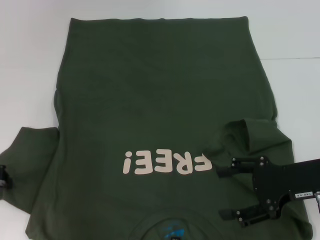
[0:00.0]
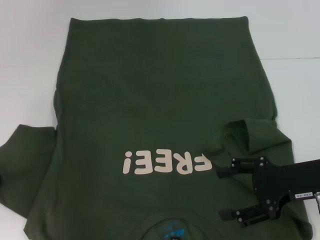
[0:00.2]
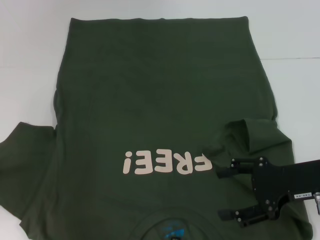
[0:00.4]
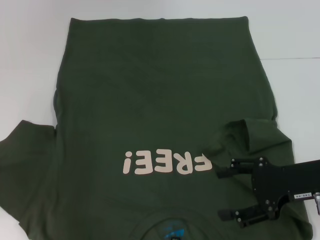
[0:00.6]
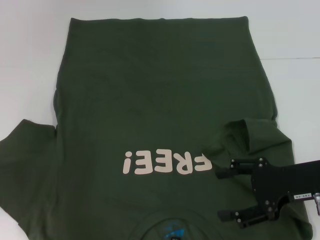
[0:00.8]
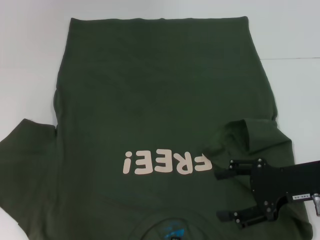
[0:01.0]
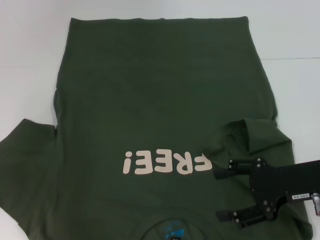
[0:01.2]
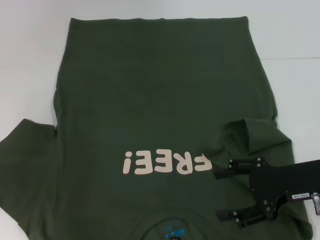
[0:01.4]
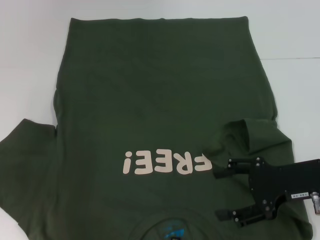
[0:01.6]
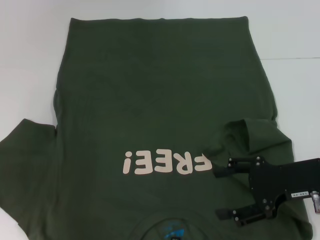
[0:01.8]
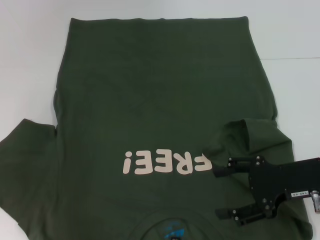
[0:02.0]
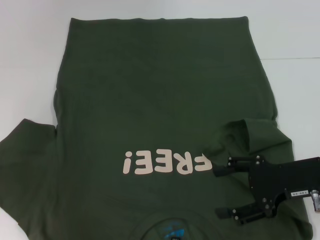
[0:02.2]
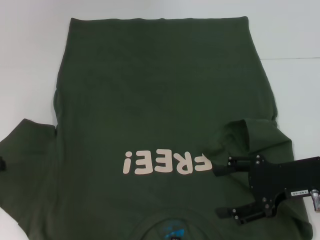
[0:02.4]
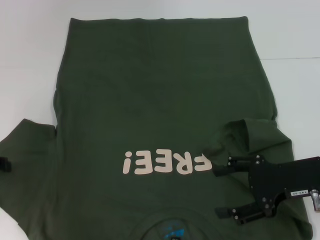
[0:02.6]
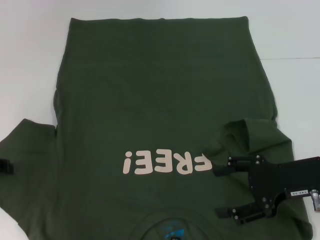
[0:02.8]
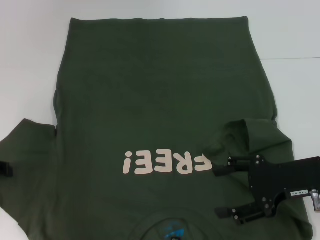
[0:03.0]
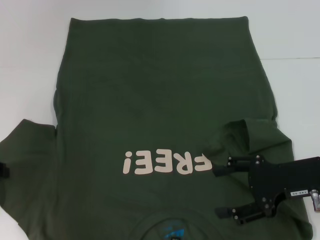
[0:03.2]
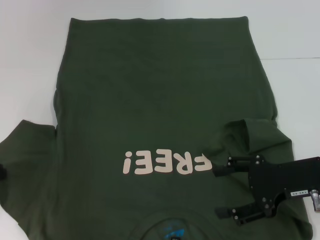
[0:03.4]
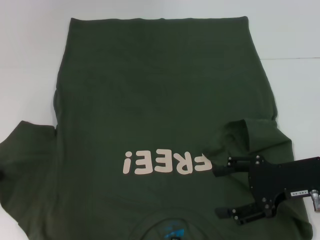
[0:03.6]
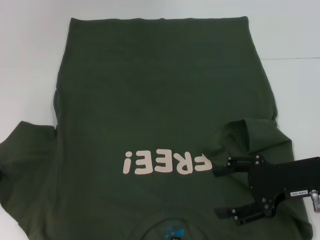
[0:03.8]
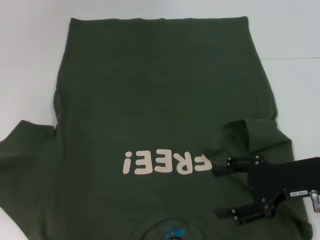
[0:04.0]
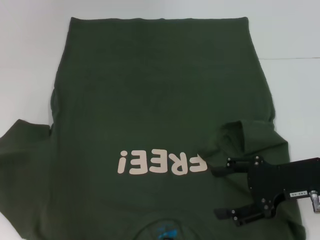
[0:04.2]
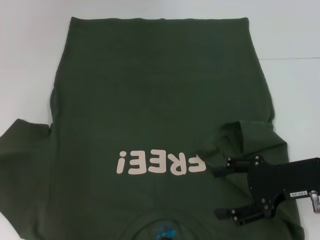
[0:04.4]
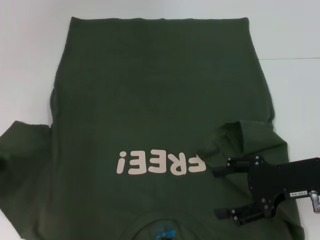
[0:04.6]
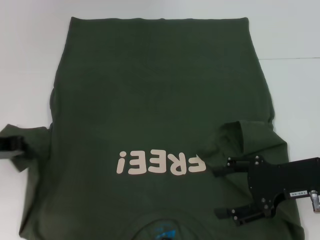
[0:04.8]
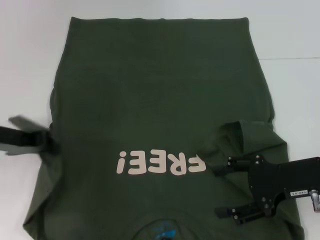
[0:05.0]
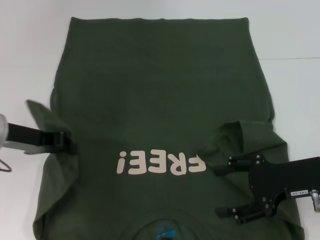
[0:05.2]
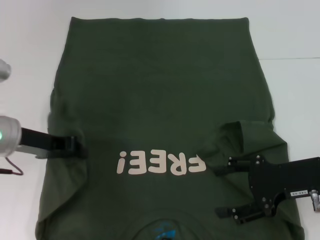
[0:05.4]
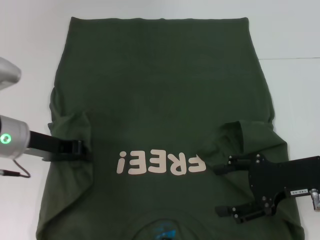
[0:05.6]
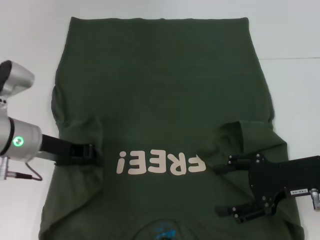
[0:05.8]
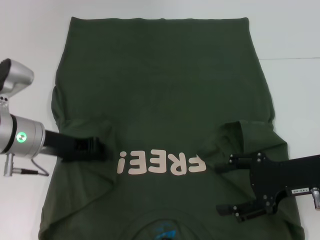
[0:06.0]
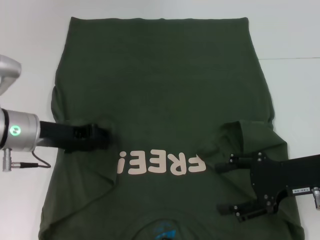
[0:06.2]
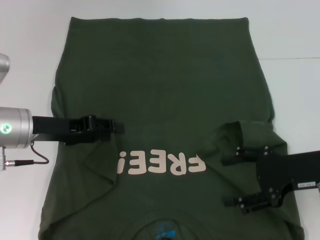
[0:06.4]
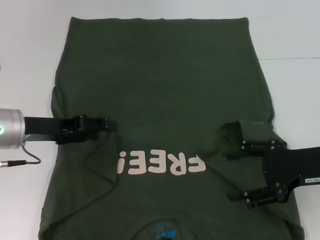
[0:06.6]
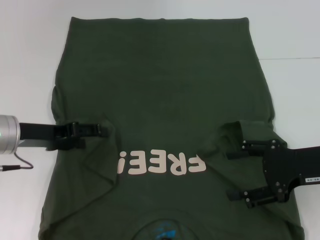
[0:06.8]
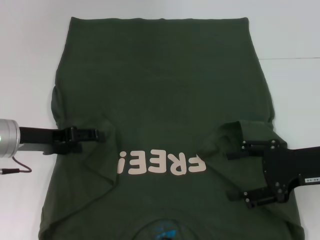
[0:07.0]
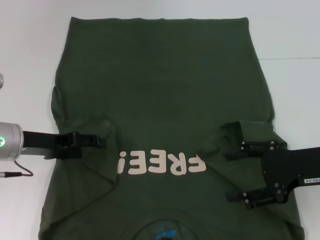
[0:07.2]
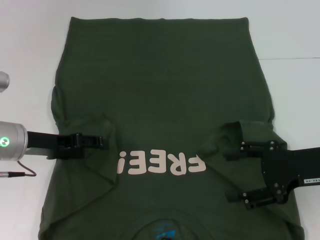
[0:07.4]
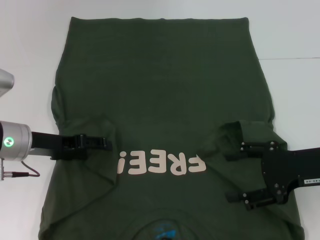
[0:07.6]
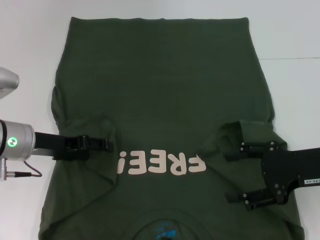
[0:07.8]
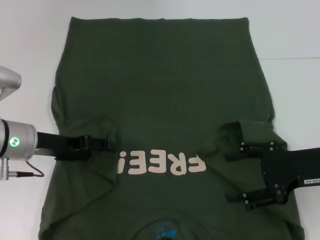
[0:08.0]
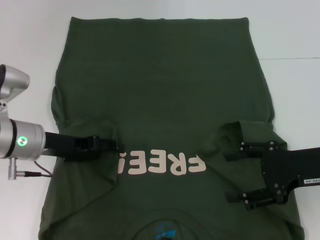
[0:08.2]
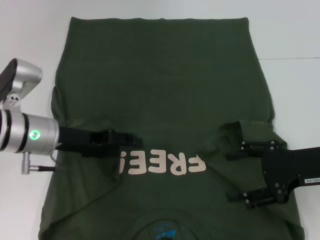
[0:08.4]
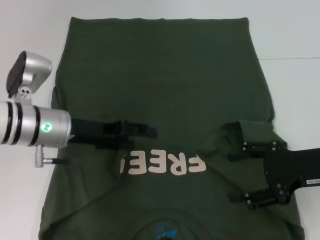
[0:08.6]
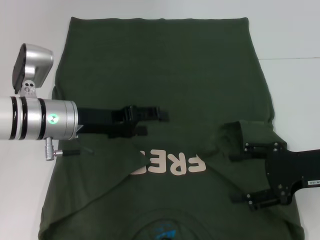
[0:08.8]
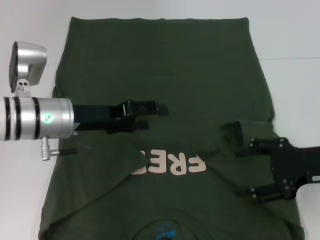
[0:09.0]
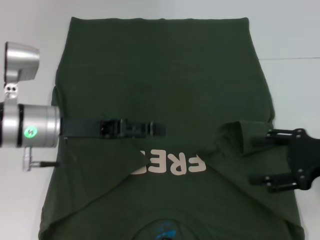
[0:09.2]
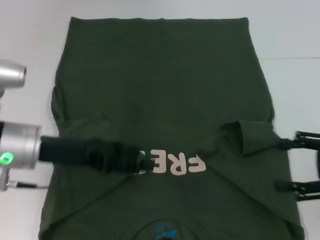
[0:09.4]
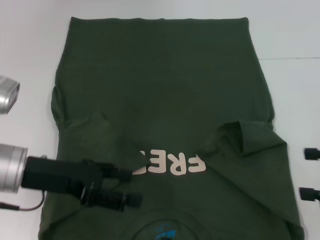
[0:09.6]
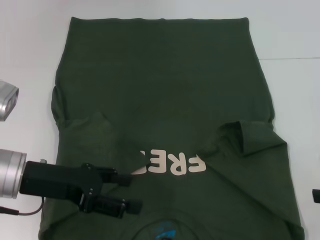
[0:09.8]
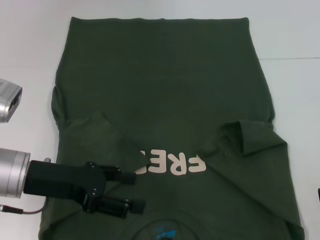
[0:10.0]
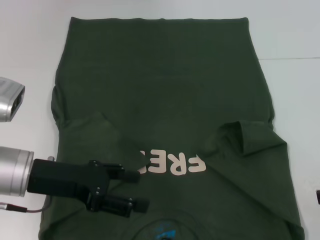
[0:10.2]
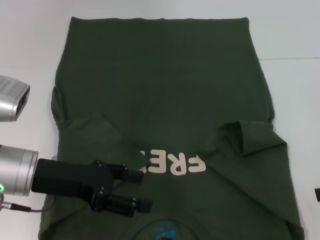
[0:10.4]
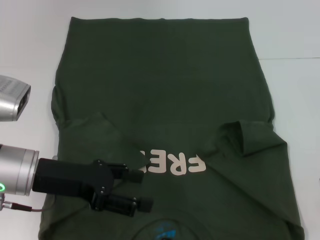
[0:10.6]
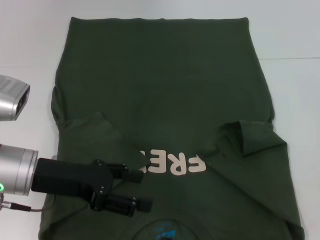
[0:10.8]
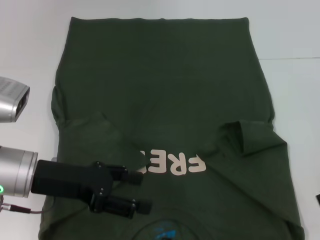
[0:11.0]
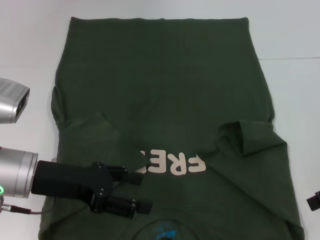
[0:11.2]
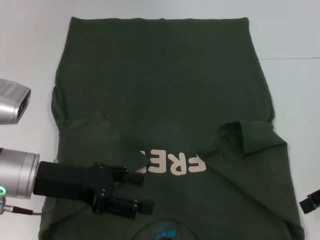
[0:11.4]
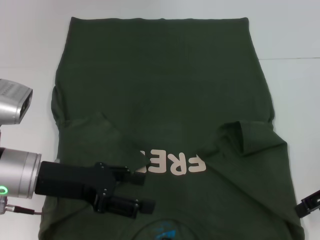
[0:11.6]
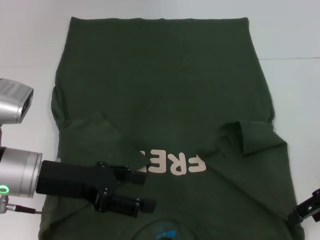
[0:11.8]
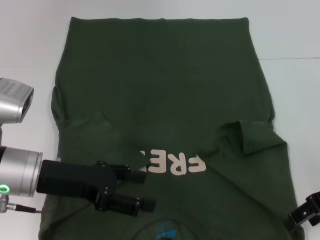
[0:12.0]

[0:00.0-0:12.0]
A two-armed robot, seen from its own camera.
Step, 0:00.0 to 0:06.6: Fold the bottom left sleeve with your left hand.
0:00.0 to 0:01.6: The grippers stay close to where they were, moving slightly.
0:03.0 to 0:04.4: The left gripper closes its fingers.
0:04.4 to 0:06.0: The left gripper is displaced to the right by some 15 cm.
0:06.0 to 0:07.6: The left gripper opens.
0:07.6 to 0:09.0: The left gripper goes approximately 5 cm to the right.
0:09.0 to 0:10.4: The left gripper shifts about 5 cm backward; the right gripper travels to the right by approximately 10 cm.
0:10.4 to 0:12.0: The right gripper is displaced to the left and forward by approximately 10 cm.

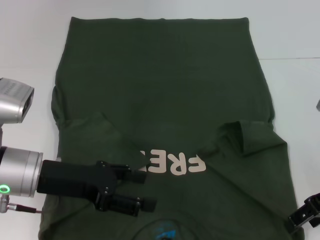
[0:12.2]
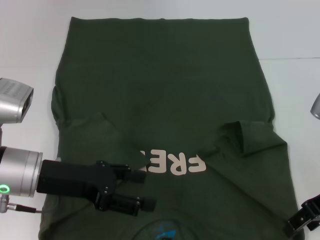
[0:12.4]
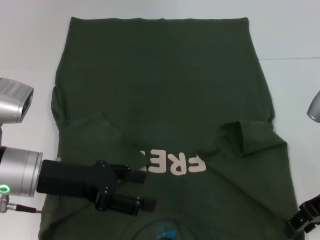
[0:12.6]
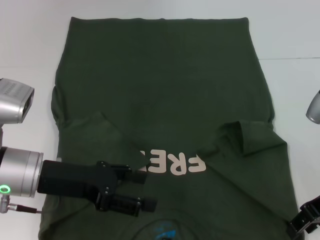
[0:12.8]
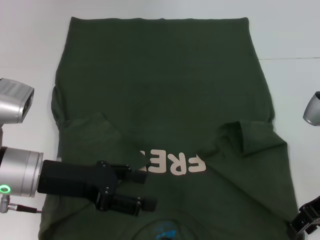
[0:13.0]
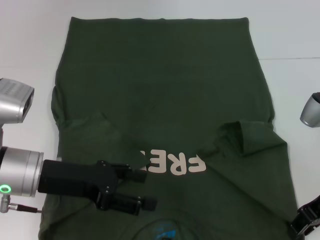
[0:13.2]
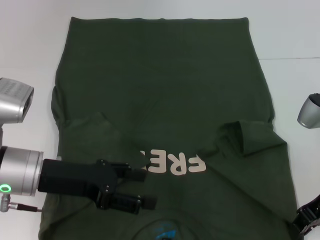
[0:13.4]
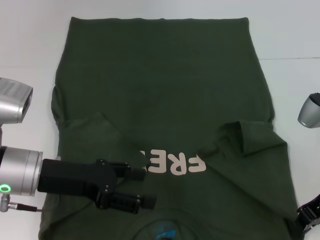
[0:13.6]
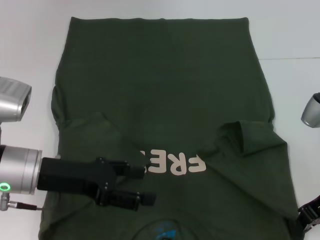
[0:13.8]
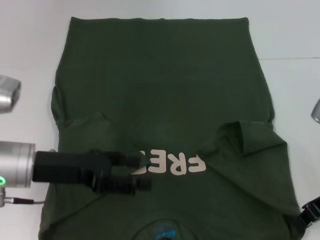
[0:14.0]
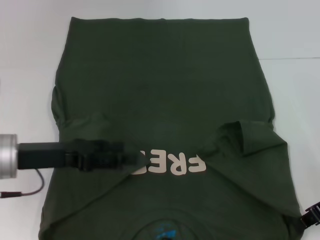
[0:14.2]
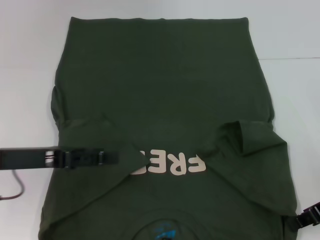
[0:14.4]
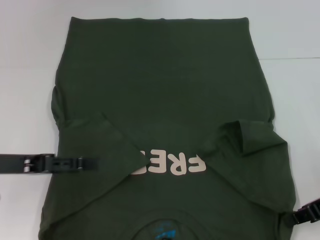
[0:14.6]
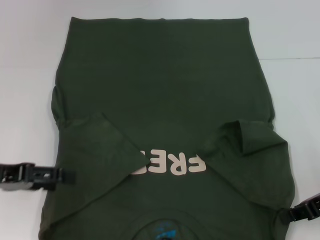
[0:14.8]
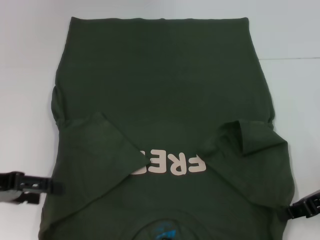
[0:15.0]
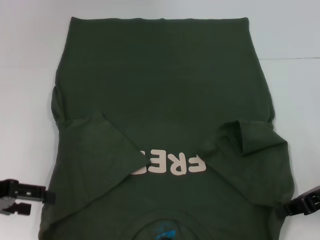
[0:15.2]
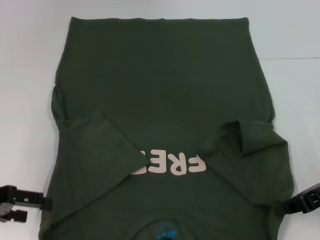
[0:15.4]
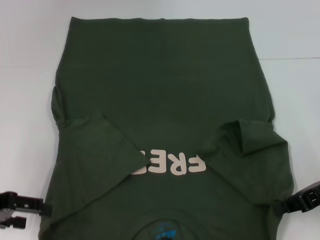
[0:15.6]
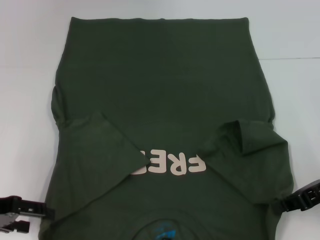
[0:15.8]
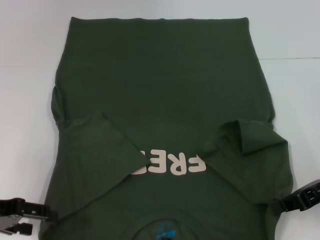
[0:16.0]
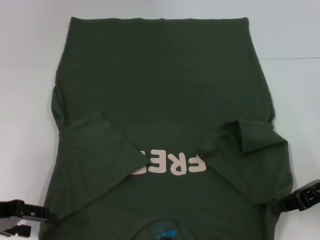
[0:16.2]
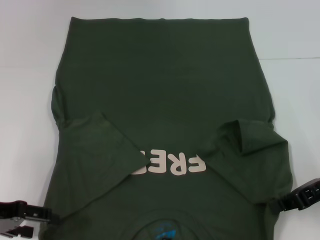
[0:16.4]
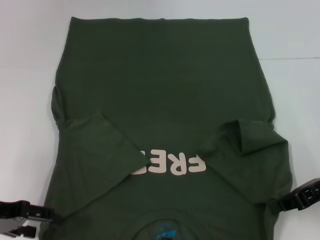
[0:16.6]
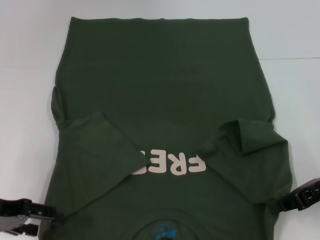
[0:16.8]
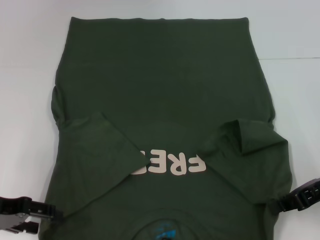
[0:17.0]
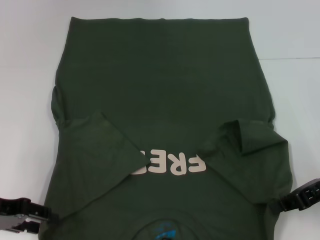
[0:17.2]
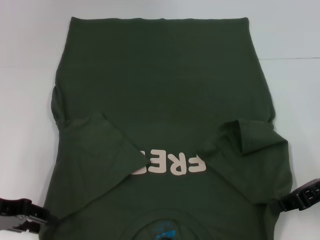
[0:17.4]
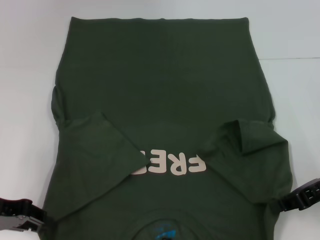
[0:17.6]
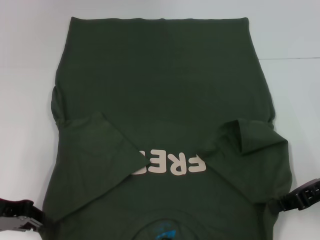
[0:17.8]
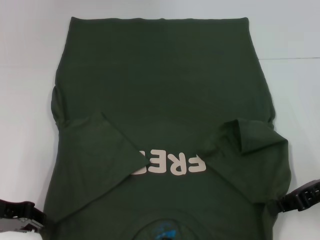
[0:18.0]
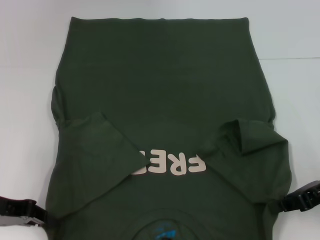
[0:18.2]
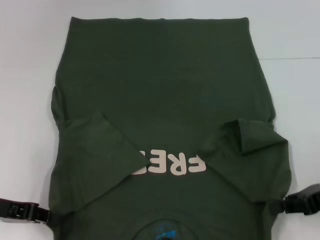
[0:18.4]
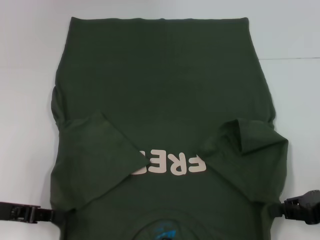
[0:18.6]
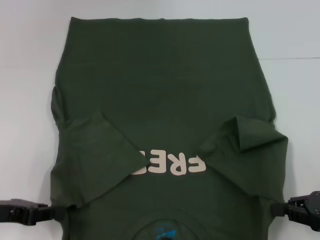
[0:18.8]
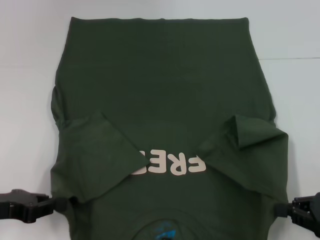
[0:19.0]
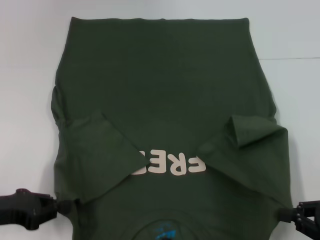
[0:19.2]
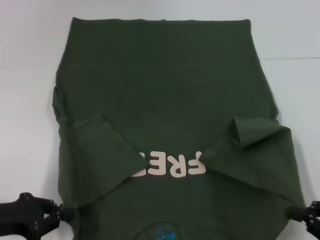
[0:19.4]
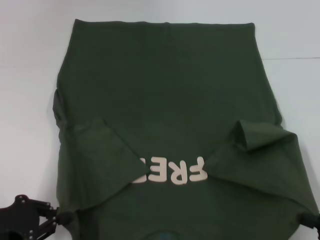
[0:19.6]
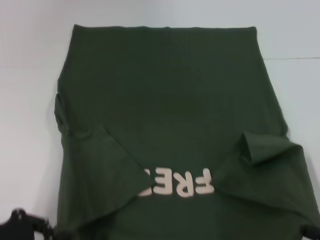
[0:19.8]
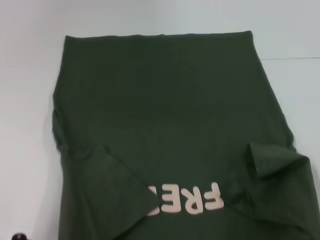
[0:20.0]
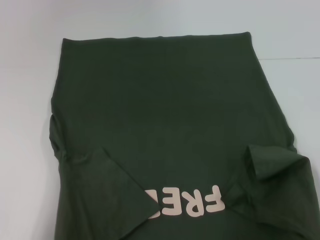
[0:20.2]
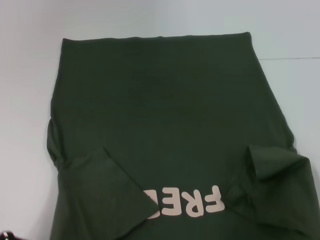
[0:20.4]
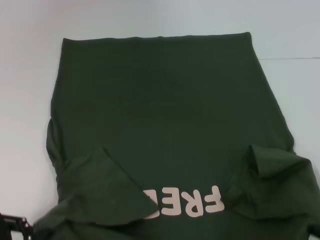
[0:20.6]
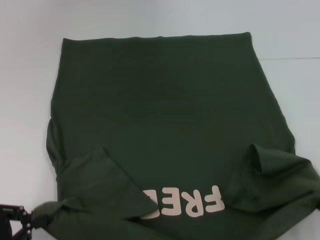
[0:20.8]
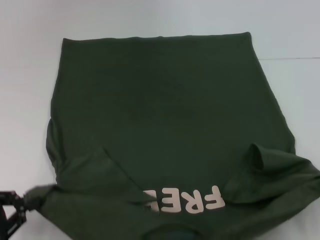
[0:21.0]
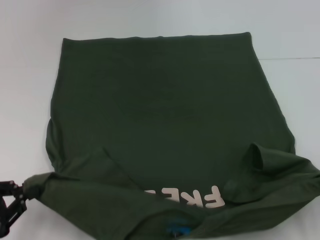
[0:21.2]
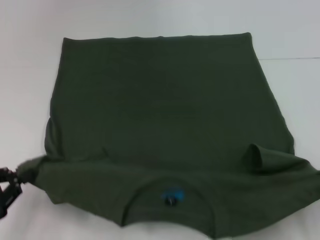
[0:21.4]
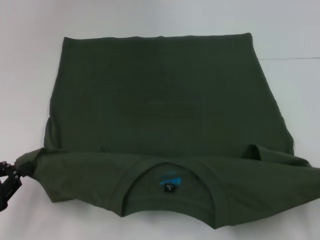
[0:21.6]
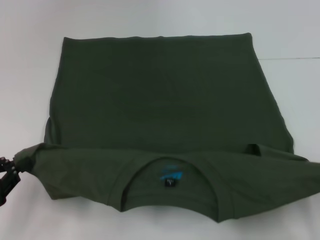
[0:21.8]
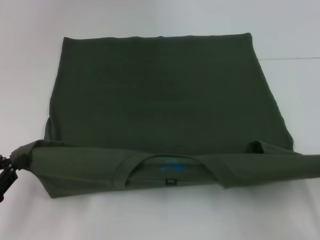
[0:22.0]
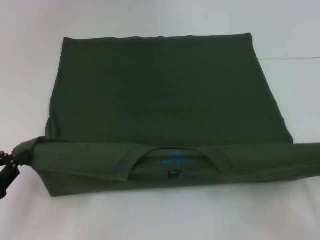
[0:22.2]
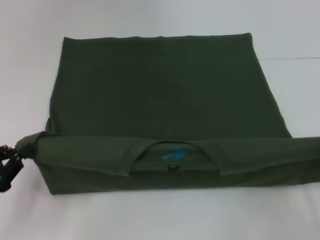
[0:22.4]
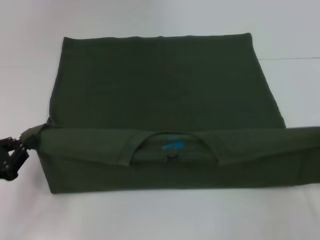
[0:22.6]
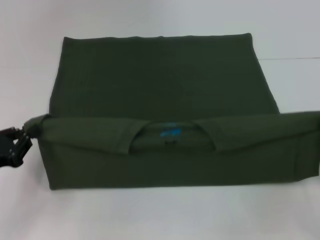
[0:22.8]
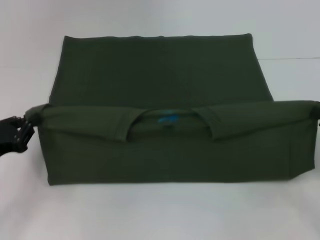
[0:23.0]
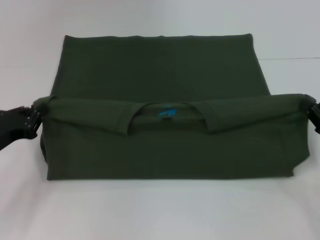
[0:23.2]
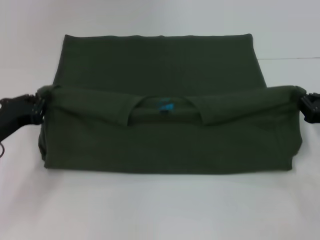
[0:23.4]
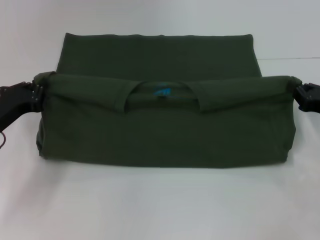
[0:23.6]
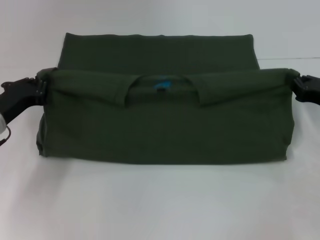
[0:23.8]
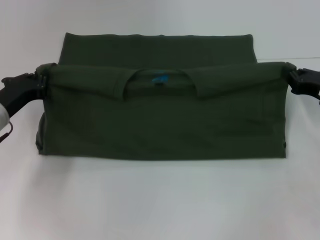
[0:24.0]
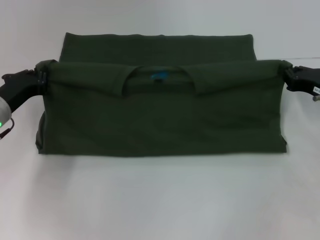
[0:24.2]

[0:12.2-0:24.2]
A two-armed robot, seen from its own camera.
Step, 0:12.2 to 0:14.4: Grab the bottom right corner with your right hand.
Step, 0:14.6 to 0:18.0: Grab the bottom left corner with your left hand.
0:12.2 to 0:13.8: The right gripper closes its fingers.
0:13.8 to 0:15.2: The left gripper heads to the left, covering roughly 10 cm.
0:15.2 to 0:16.6: The grippers stay close to where they were, moving slightly.
0:16.6 to 0:18.2: The left gripper closes its fingers.
0:18.2 to 0:19.8: The right gripper moves backward and downward, about 20 cm, while the left gripper is displaced backward by about 10 cm.
0:21.2 to 0:22.6: The left gripper changes place by some 5 cm; the right gripper shifts about 5 cm forward.
0:22.6 to 0:24.2: The right gripper travels forward by approximately 20 cm. Meanwhile the left gripper goes about 15 cm forward and to the right.
